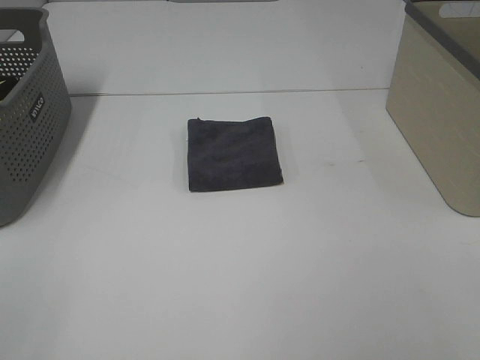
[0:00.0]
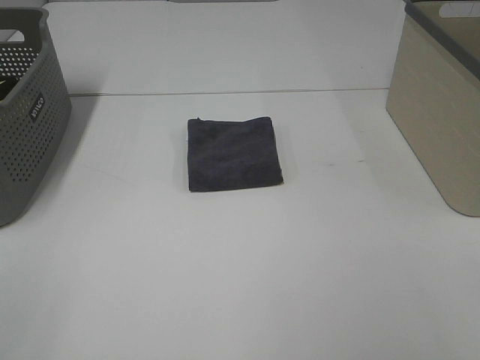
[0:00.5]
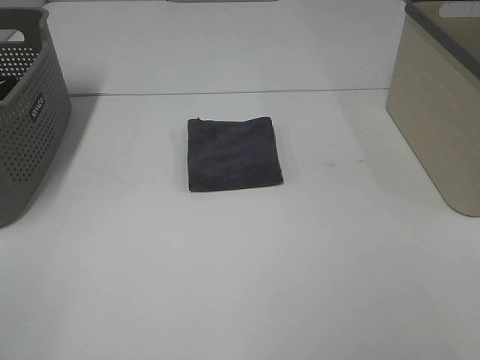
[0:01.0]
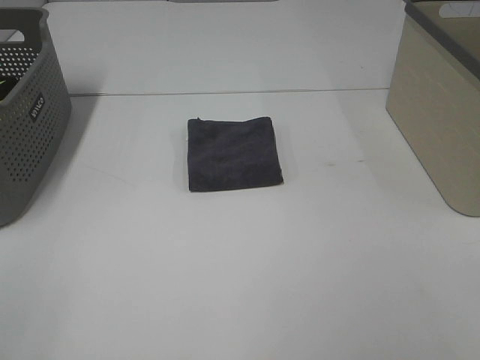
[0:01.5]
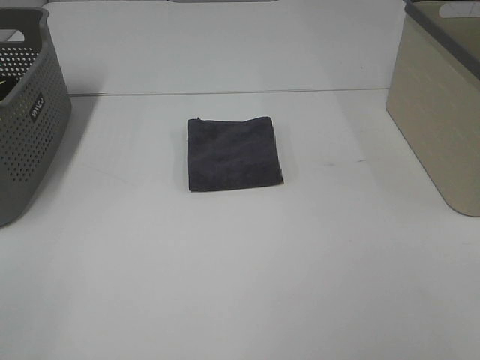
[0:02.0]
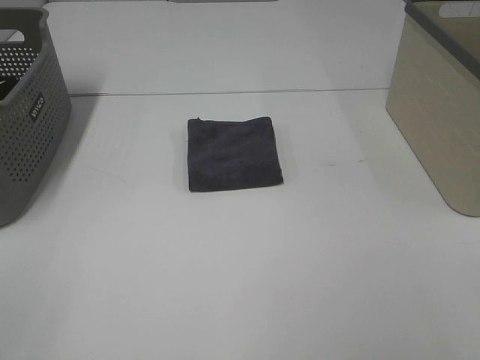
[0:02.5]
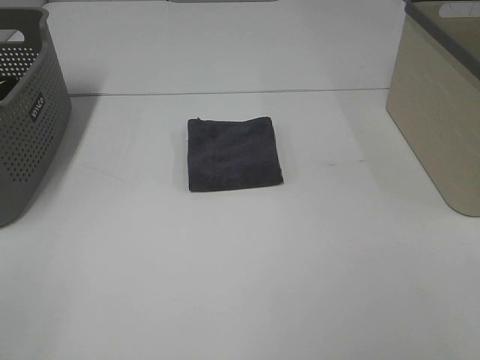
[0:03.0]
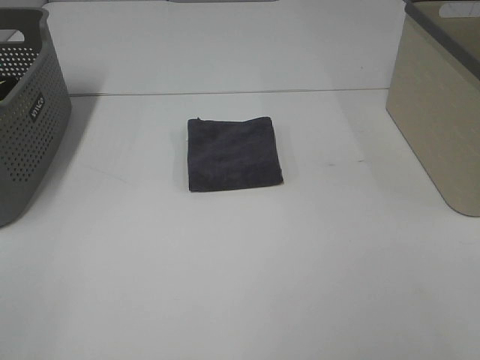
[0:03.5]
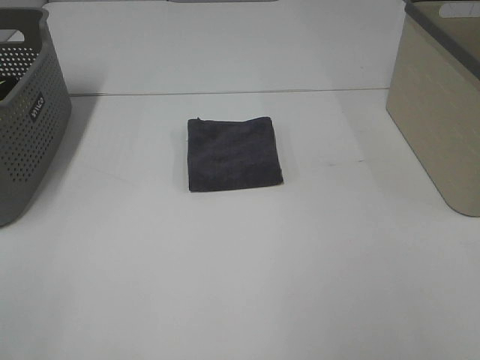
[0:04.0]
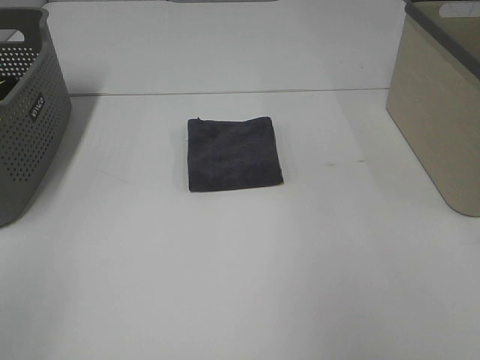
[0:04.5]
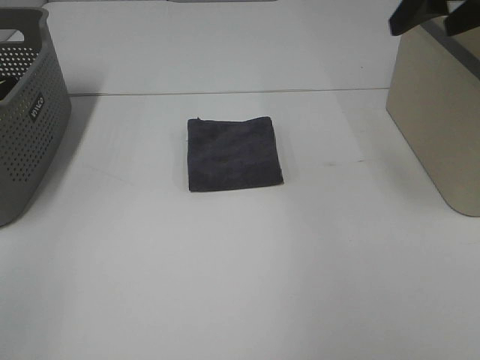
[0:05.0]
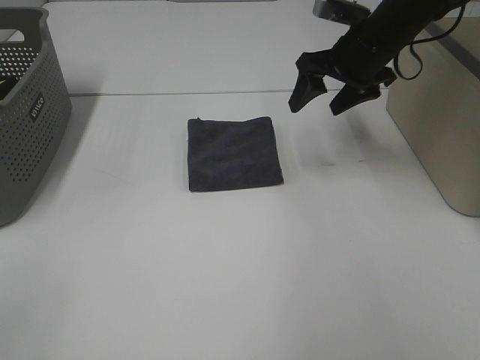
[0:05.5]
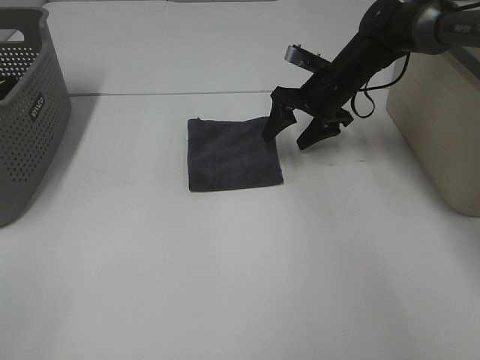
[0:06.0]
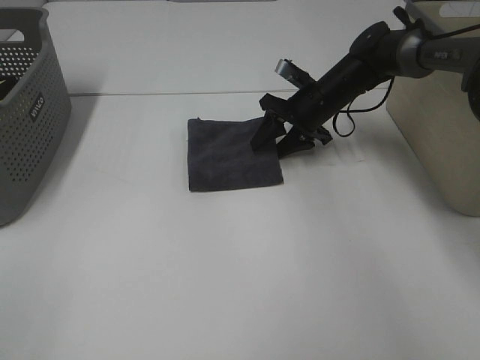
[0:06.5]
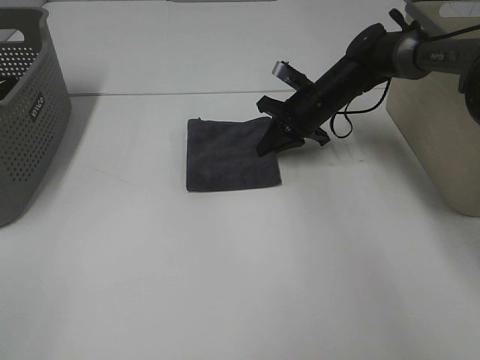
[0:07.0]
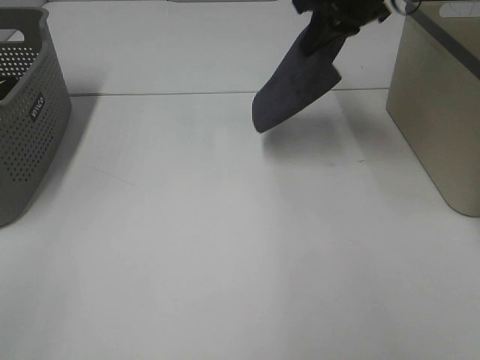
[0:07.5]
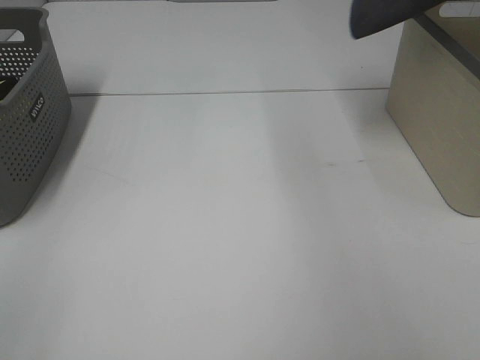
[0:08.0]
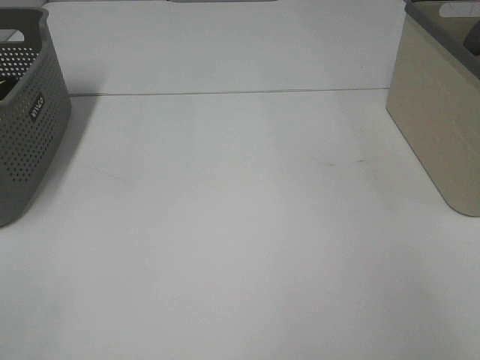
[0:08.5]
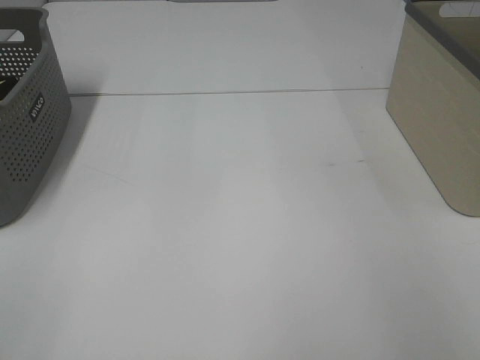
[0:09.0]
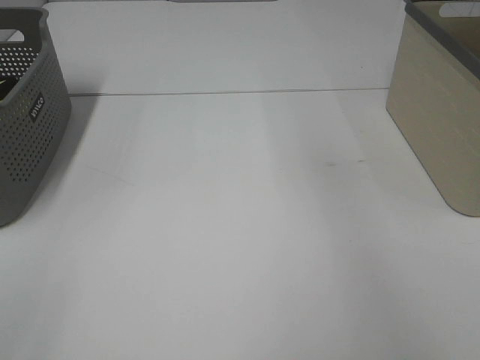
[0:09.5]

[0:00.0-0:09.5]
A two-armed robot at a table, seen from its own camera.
Step, 0.0 to 6.5 s: Right hand: grab the folded grey towel.
Step, 7.0 to 9.0 s: Right hand: place the grey towel in right basket.
0.0 to 2.0 s: Both grippers stay put.
4.0 to 5.5 s: The right gripper goes approximately 40 cm forward.
5.5 to 7.5 s: The right gripper is displaced upward by roughly 10 cm, and closes up.
7.5 to 9.5 s: The right gripper is displaced to the right and upward by some 20 cm, and opens.

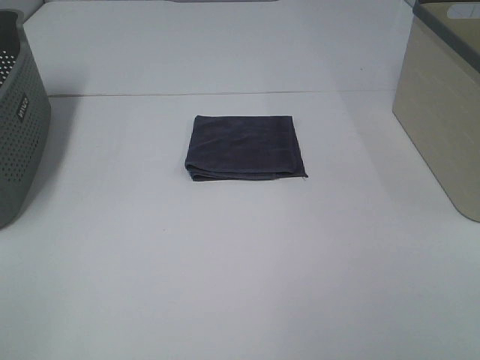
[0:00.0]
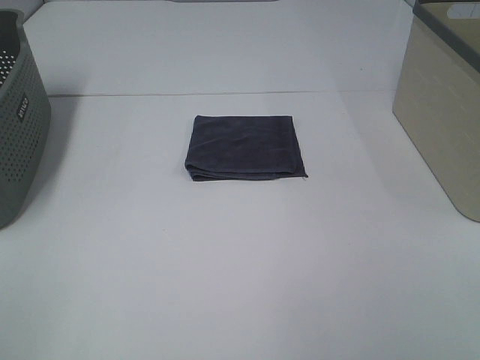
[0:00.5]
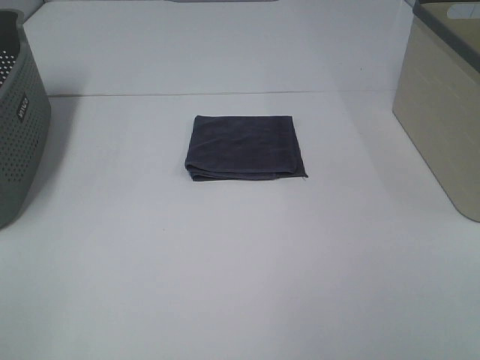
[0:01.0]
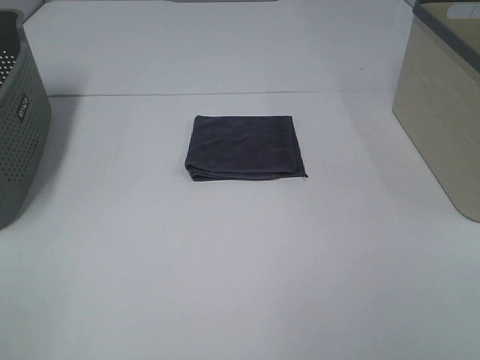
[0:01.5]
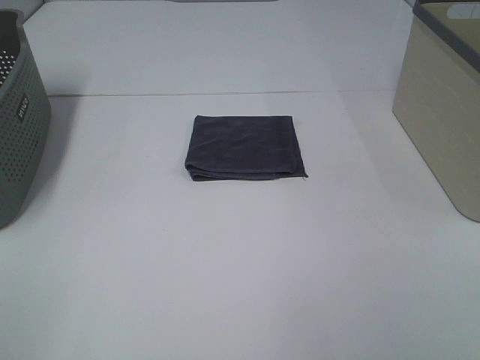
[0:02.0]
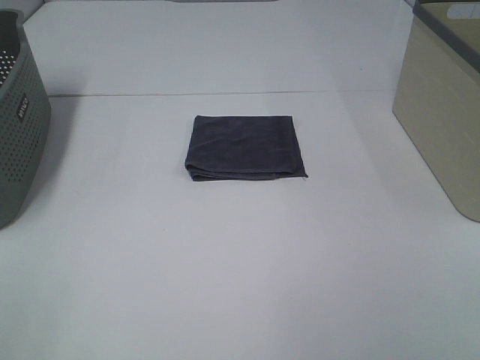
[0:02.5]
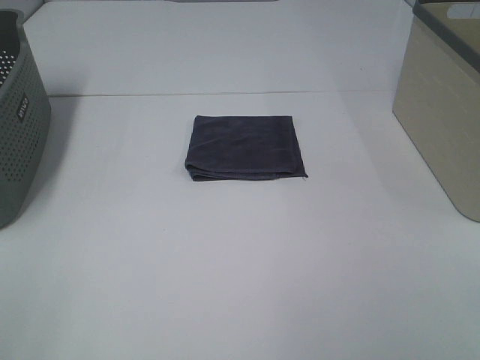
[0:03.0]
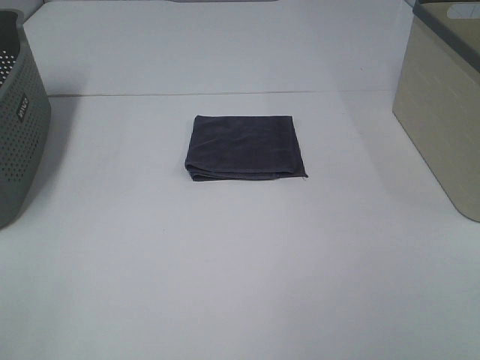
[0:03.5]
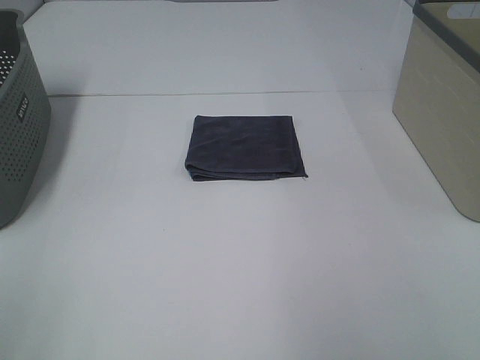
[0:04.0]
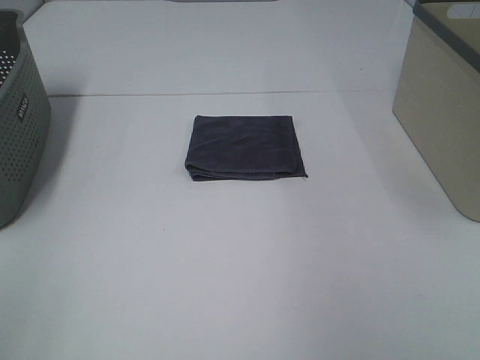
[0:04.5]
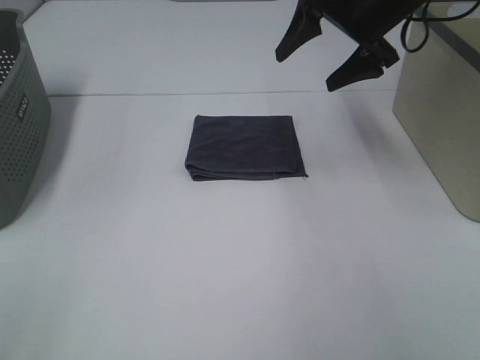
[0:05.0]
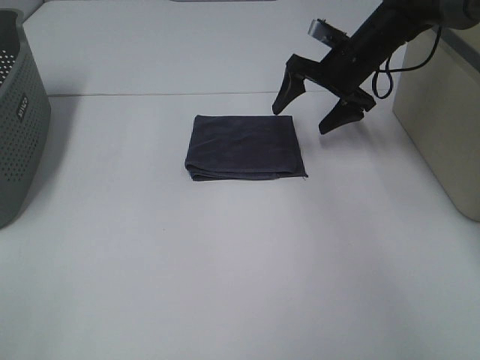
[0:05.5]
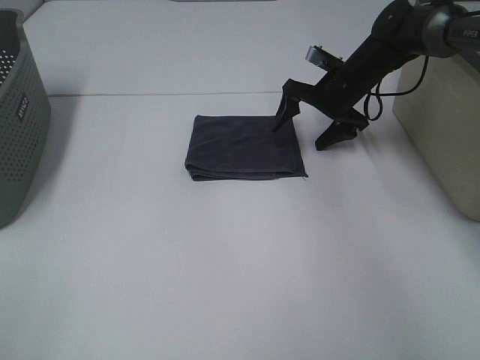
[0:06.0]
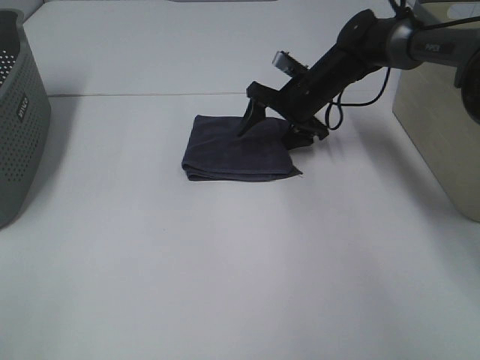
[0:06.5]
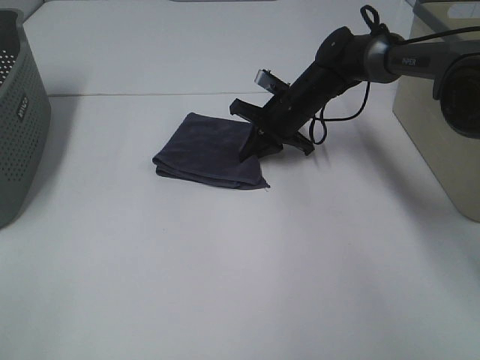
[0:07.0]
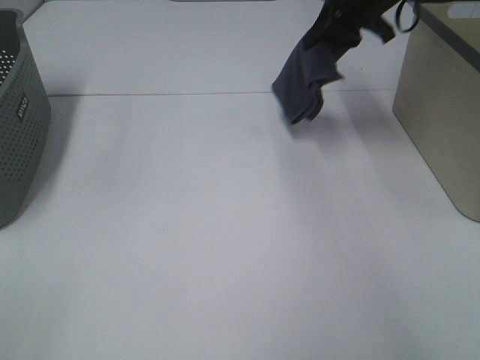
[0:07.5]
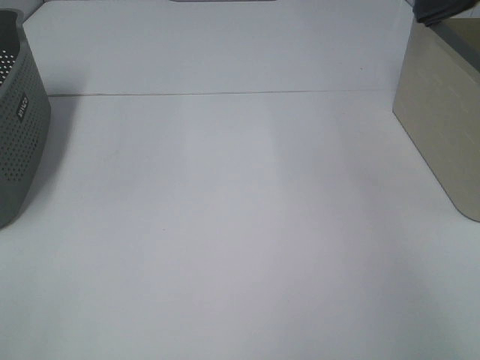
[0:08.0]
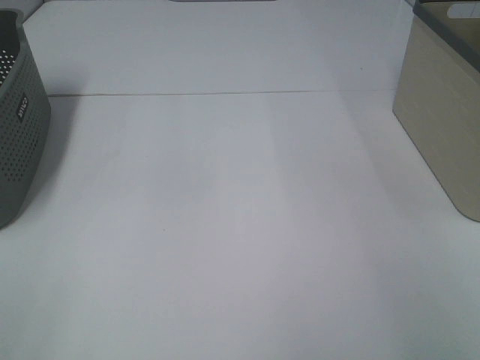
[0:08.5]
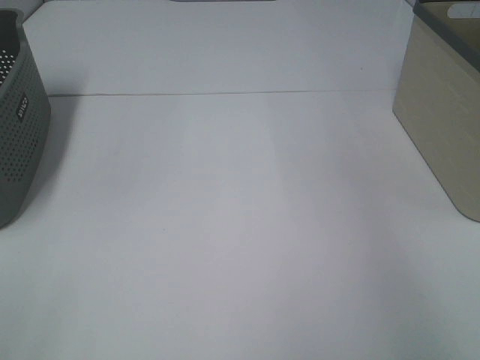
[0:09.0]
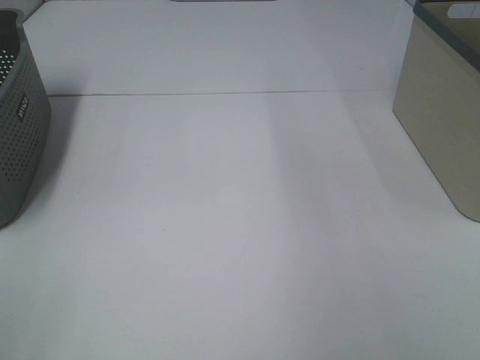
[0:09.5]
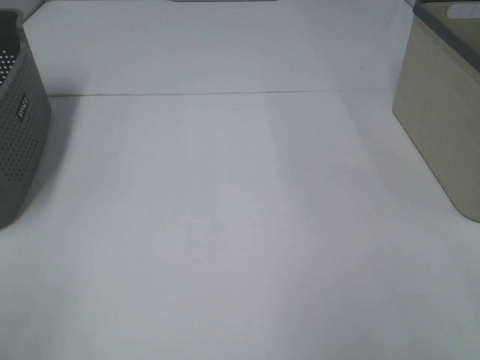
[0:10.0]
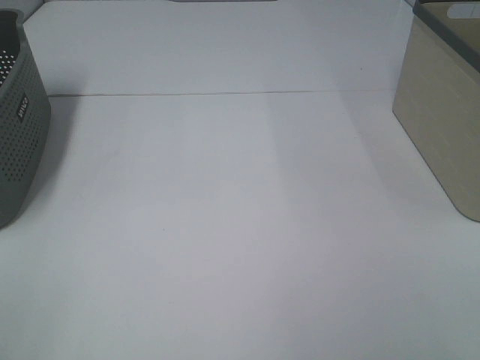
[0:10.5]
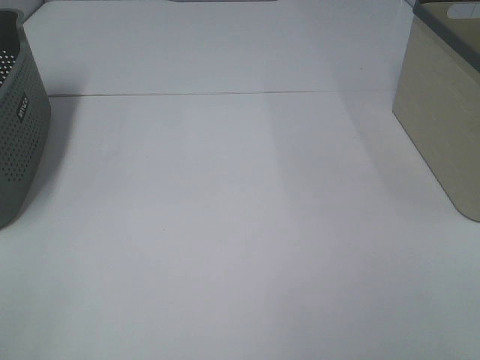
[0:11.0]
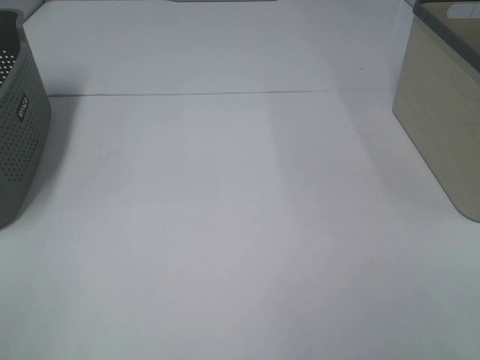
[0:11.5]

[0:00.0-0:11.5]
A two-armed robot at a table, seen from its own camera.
Step, 0.0 to 6.5 s: Right hand: grab the folded grey towel.
Step, 7.0 to 8.5 s: Right hand: place the grey towel in right basket.
0.0 to 2.0 s: Neither gripper changes place.
4.0 to 6.0 s: The right gripper goes roughly 50 cm forward and downward.
6.0 to 7.5 s: The right gripper travels upward by roughly 15 cm, and closes its fingers.
7.5 to 9.5 s: The right gripper is displaced upward and backward by about 20 cm, moves some 25 cm to the right and comes back, and opens.

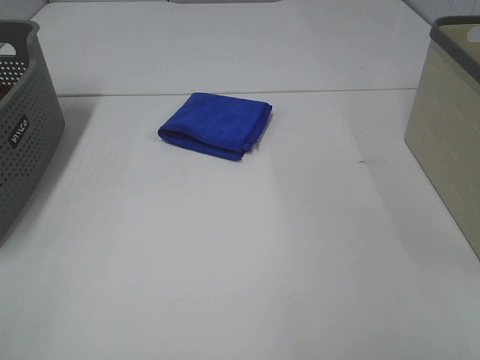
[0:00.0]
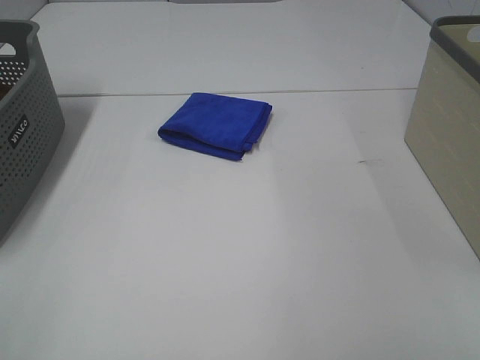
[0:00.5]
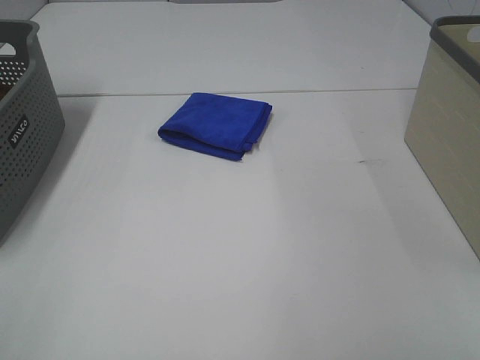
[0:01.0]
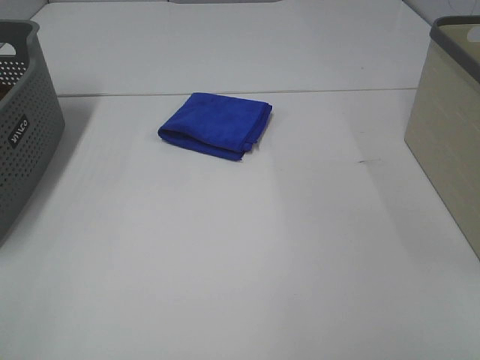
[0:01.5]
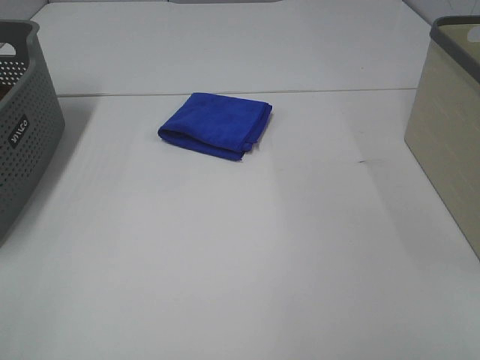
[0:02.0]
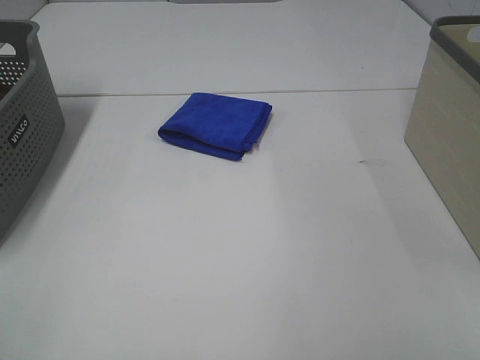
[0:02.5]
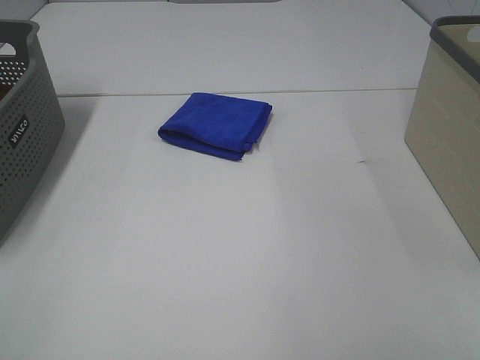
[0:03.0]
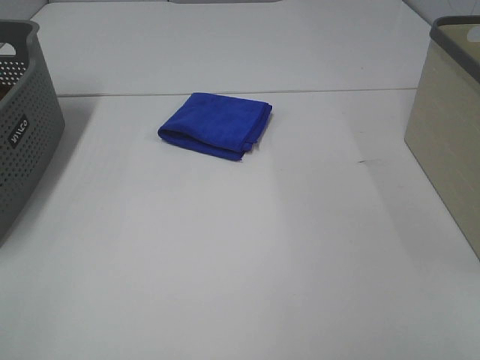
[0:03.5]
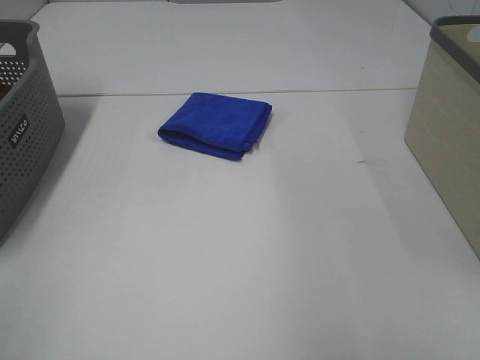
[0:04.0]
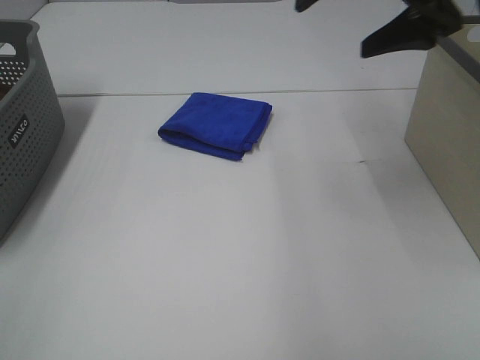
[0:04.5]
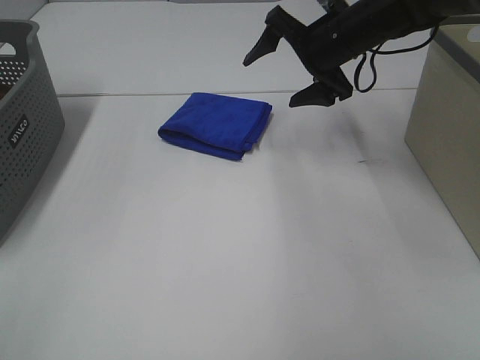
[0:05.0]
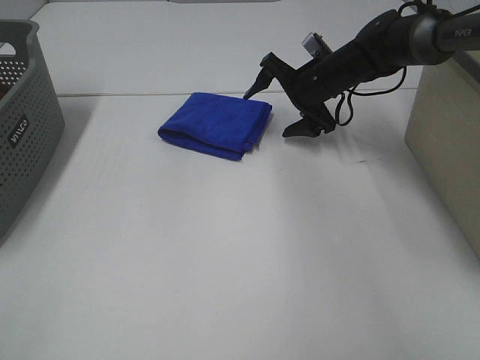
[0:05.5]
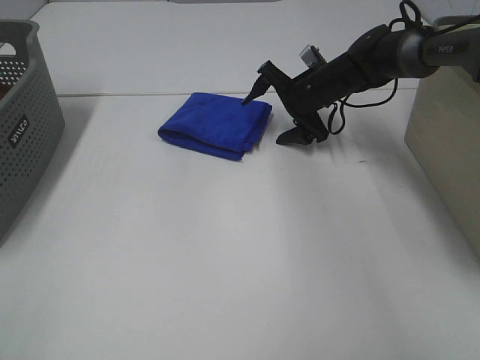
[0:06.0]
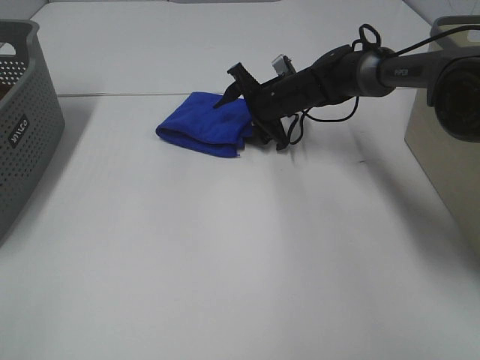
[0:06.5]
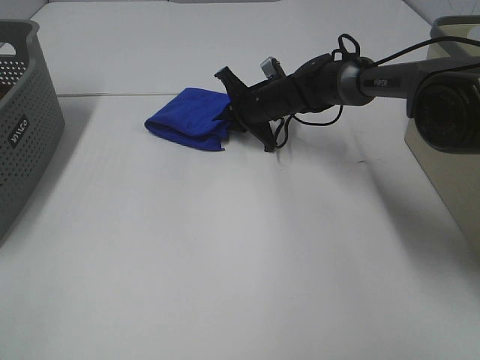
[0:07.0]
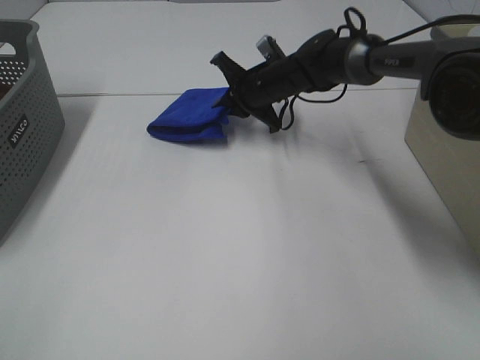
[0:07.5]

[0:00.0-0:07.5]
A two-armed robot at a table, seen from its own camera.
Step, 0.0 to 7.0 s: Right hand: grab the folded blue towel.
0.0 to 2.0 s: Neither gripper changes place.
4.0 to 5.5 s: The right gripper goes approximately 50 cm forward and downward.
5.5 to 7.5 s: The right gripper heads to the left, covering approximately 10 cm, and closes up.
